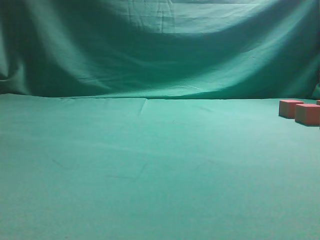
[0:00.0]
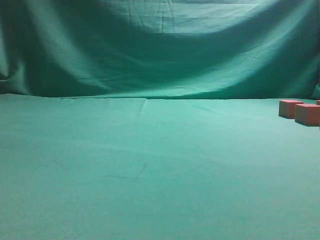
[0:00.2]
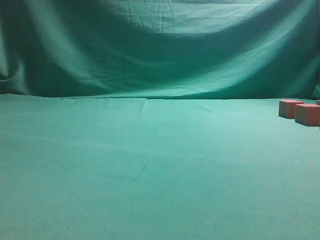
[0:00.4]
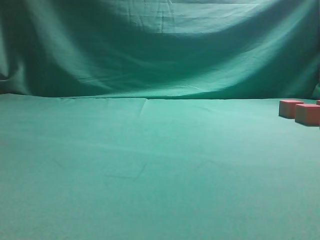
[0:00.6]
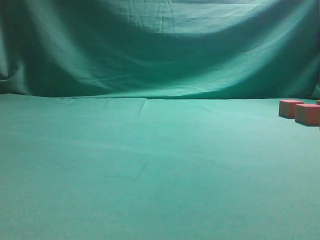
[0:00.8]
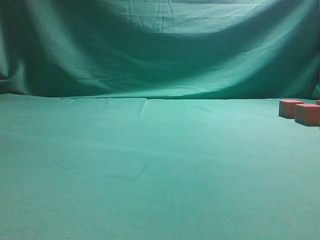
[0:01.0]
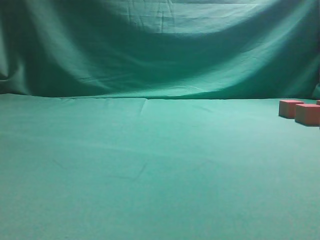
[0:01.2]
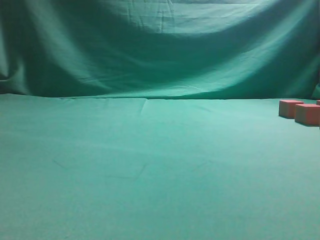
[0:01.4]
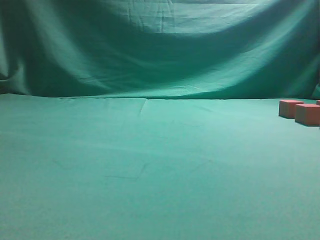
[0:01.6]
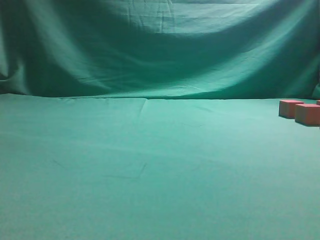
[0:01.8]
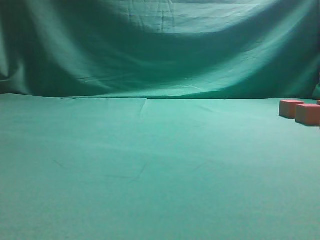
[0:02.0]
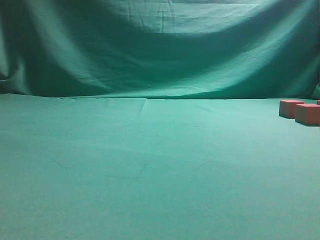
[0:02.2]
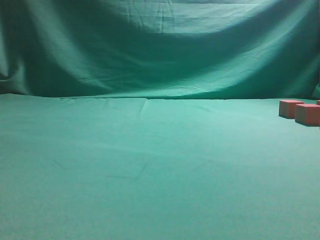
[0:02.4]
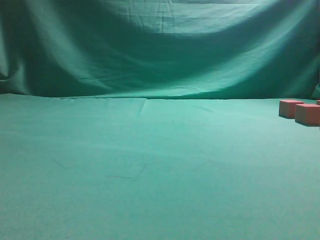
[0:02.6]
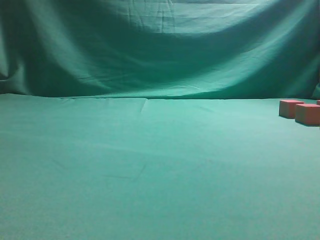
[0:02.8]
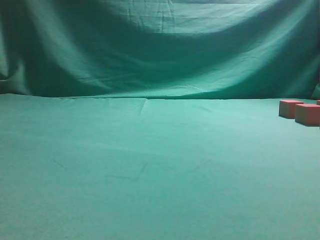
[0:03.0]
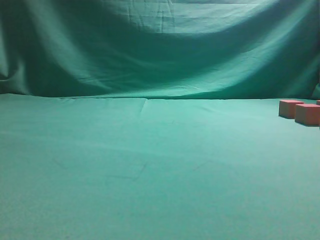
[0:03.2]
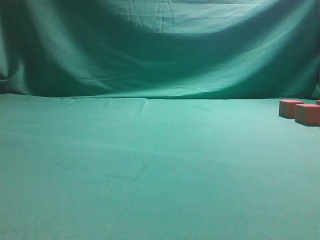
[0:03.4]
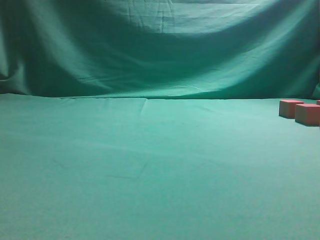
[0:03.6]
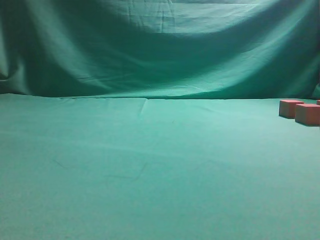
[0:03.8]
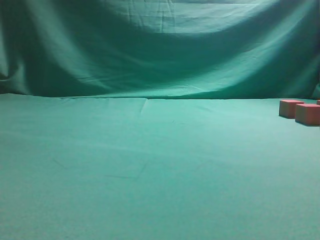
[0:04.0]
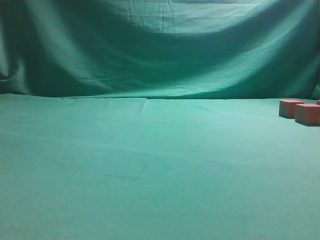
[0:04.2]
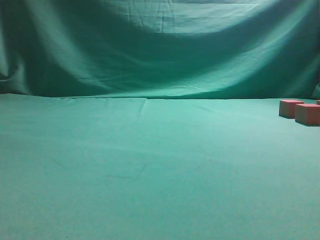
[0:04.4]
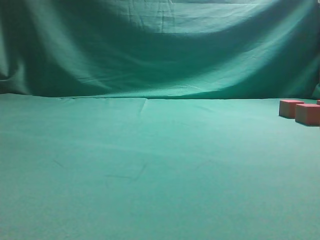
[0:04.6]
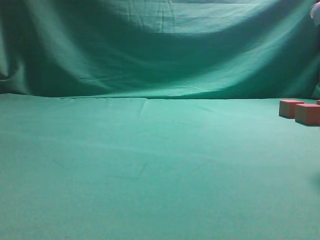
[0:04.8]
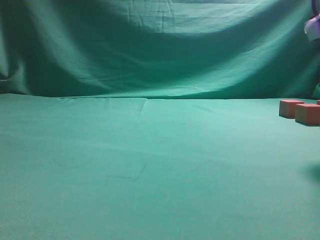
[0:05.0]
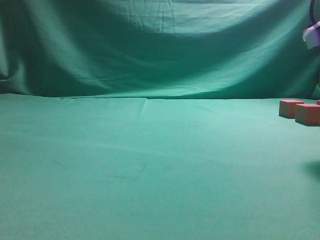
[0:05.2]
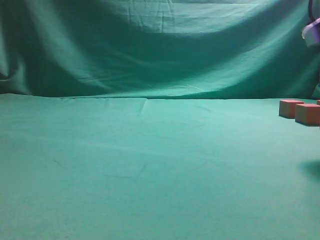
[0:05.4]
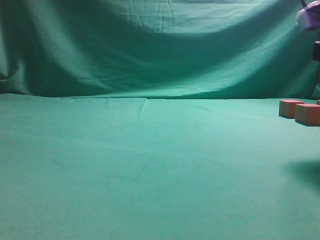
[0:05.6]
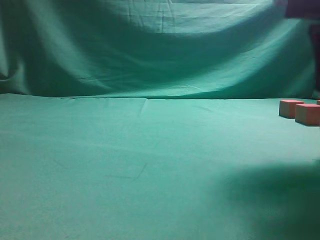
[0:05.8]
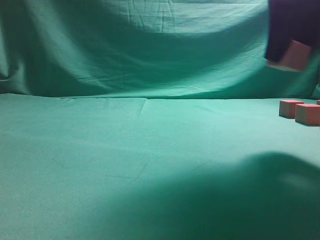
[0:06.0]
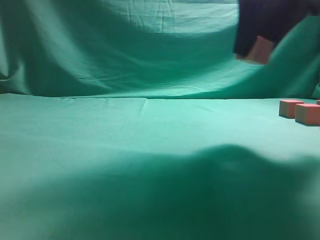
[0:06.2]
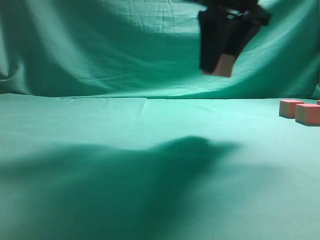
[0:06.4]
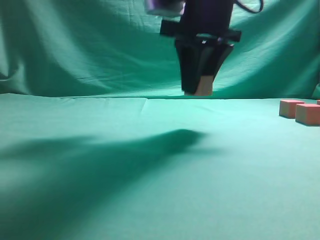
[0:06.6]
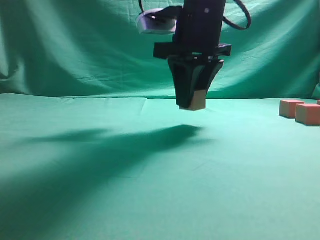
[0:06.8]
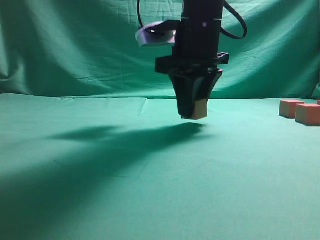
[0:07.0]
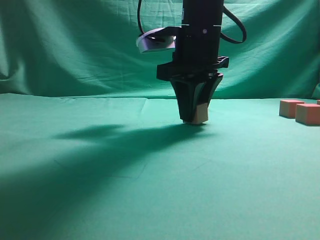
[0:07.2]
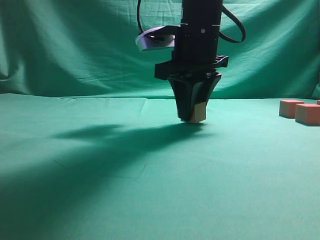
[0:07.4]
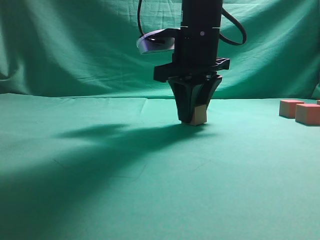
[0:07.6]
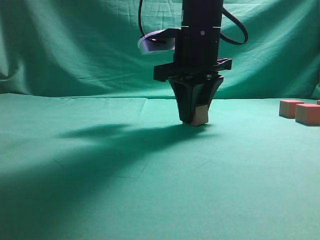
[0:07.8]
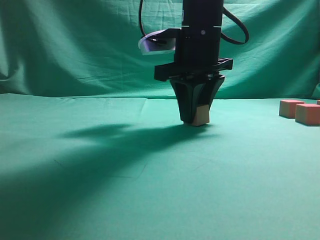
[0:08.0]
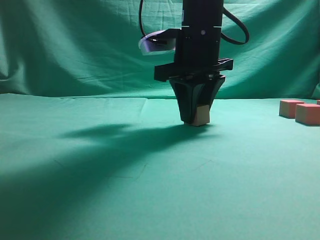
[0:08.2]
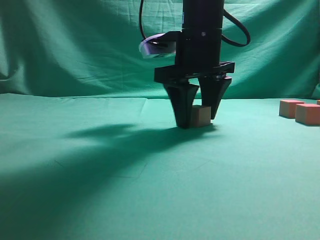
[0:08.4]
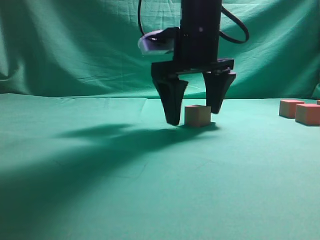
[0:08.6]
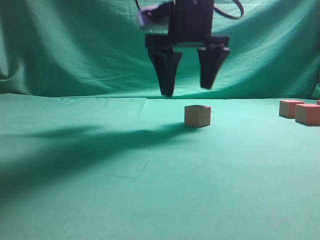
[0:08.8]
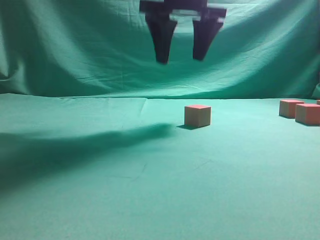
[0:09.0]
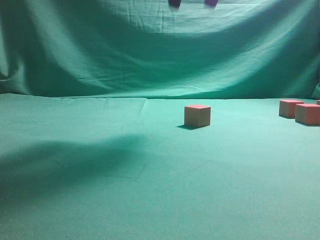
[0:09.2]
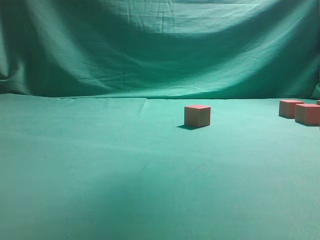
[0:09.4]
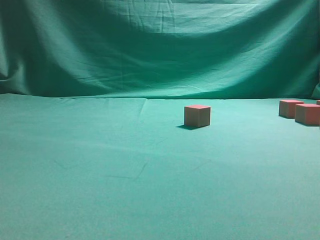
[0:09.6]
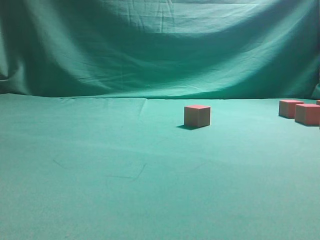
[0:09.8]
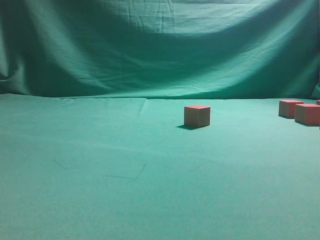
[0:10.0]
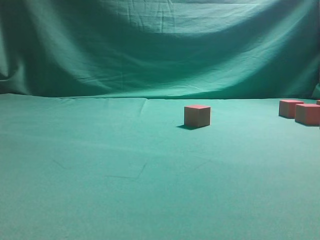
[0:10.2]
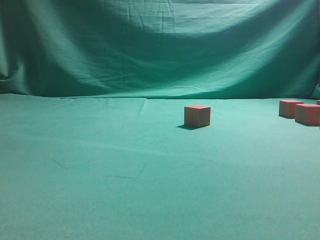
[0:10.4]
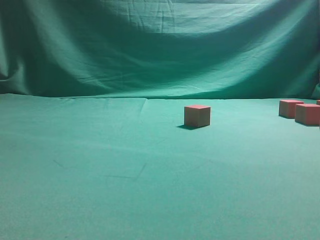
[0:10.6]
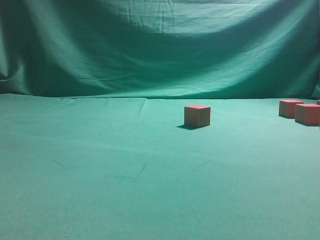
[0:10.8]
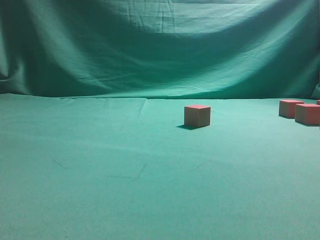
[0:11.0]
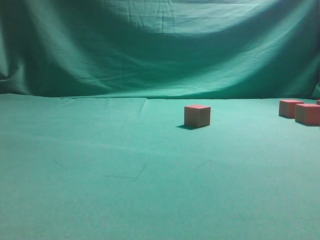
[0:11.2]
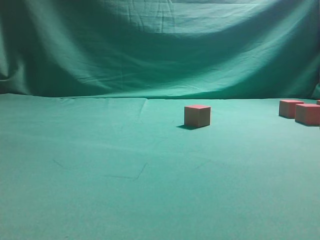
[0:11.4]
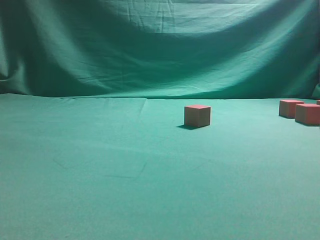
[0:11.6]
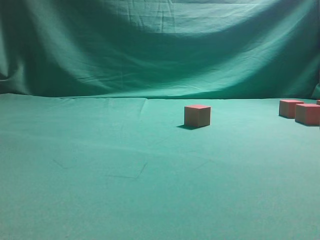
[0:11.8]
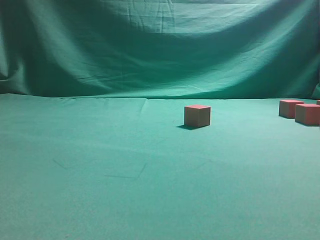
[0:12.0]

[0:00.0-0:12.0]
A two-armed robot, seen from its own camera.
Task of the whole recording: pick up the multiple cubes in two columns one by one and place them in another position on the table.
Step, 0:05.8 to 0:08.8: Place the block at the correct position to assemble the letter S.
Step, 0:09.0 to 0:11.4: Pick up the block on the table.
0:04.4 to 0:06.0: The right gripper shifts roughly 10 cm forward and to the left.
0:06.0 to 0:07.6: The right gripper travels to the left, forward and downward by approximately 20 cm.
0:07.6 to 0:09.0: The right gripper is displaced upward by about 10 cm, and opens.
0:09.0 to 0:10.4: The right gripper travels to the right and backward by roughly 30 cm.

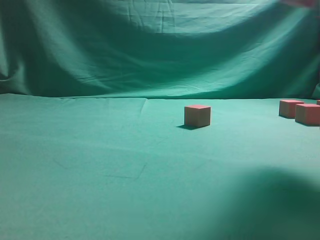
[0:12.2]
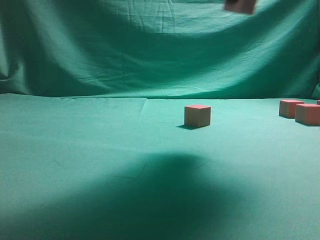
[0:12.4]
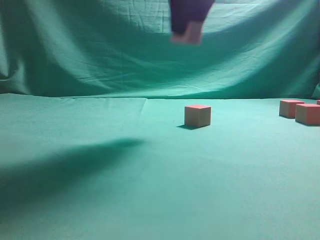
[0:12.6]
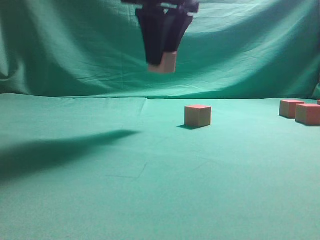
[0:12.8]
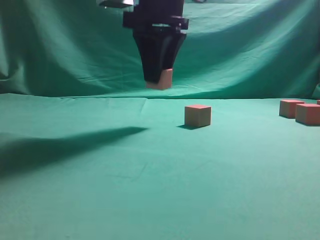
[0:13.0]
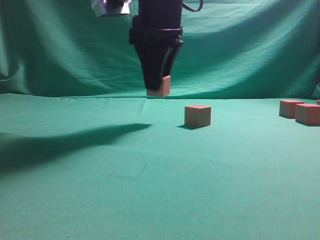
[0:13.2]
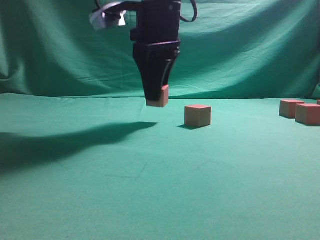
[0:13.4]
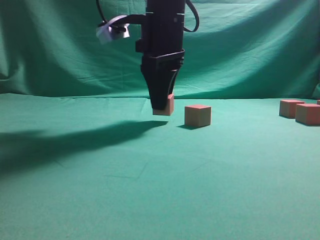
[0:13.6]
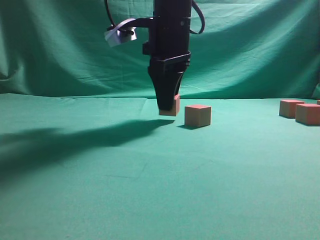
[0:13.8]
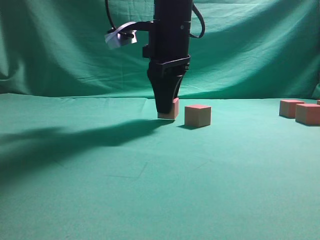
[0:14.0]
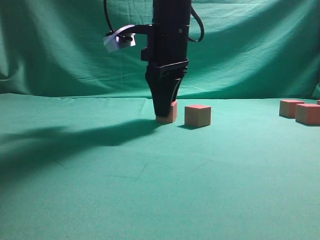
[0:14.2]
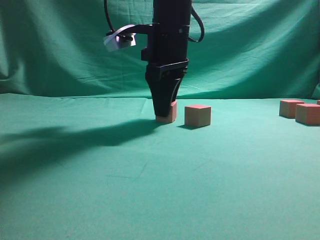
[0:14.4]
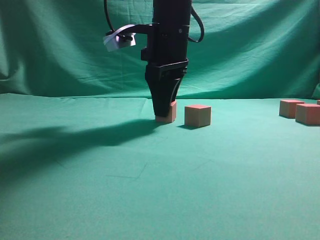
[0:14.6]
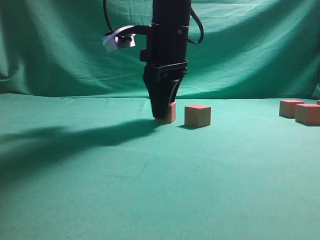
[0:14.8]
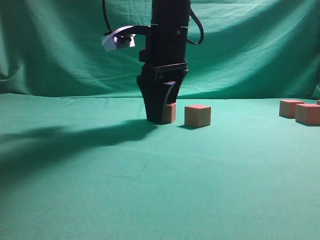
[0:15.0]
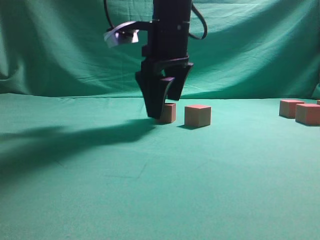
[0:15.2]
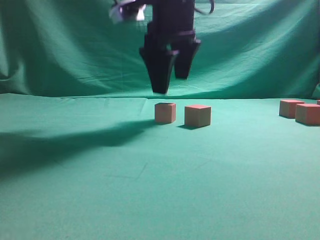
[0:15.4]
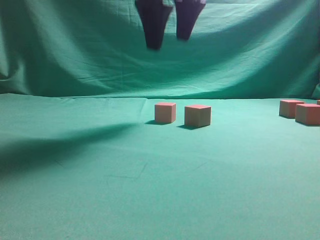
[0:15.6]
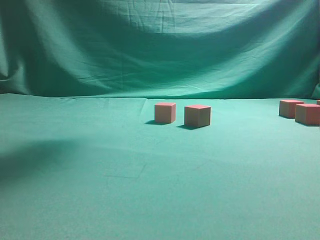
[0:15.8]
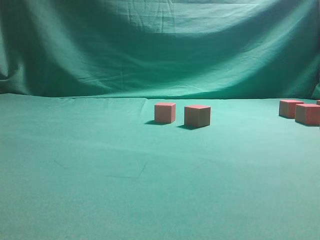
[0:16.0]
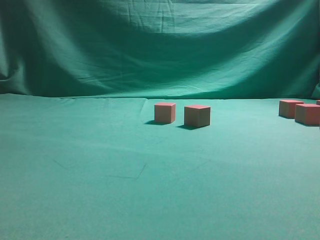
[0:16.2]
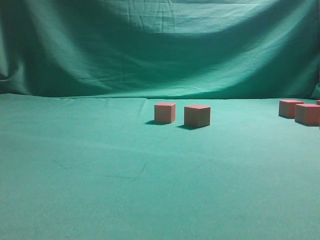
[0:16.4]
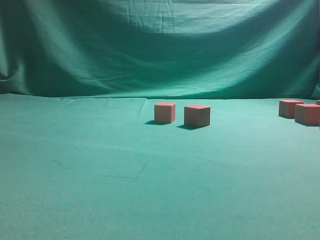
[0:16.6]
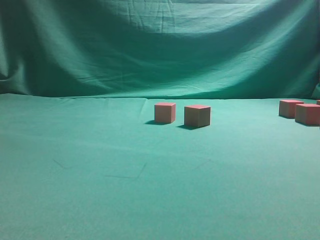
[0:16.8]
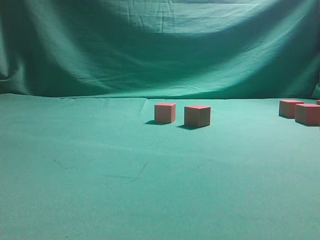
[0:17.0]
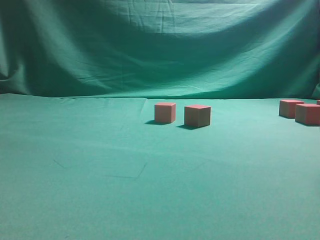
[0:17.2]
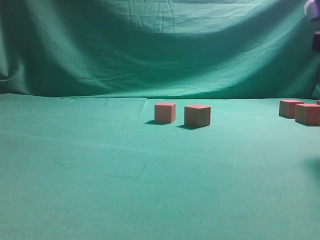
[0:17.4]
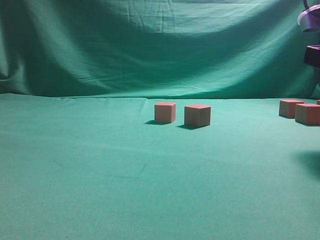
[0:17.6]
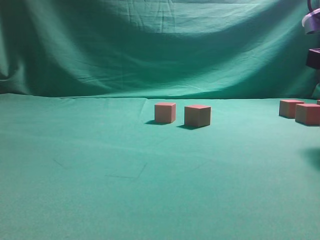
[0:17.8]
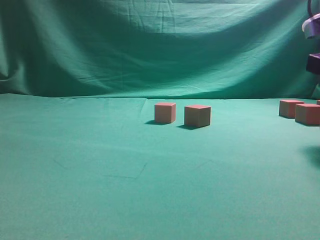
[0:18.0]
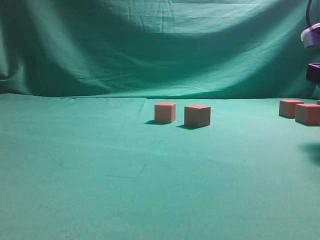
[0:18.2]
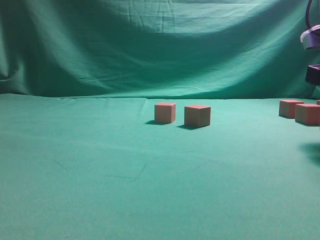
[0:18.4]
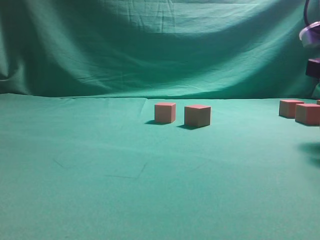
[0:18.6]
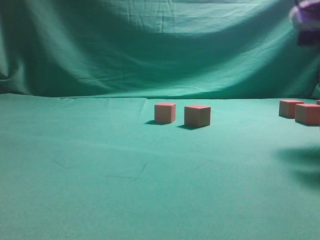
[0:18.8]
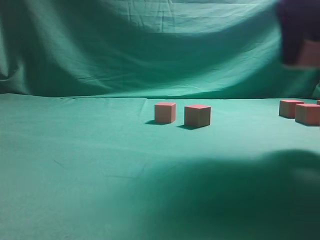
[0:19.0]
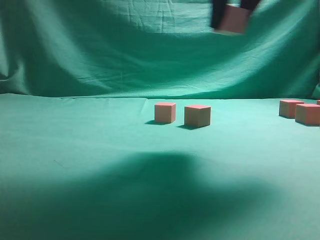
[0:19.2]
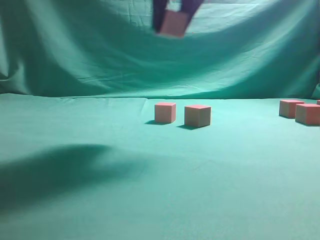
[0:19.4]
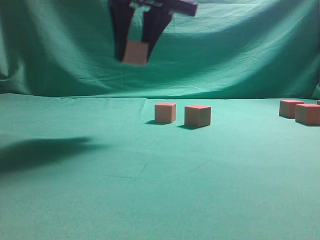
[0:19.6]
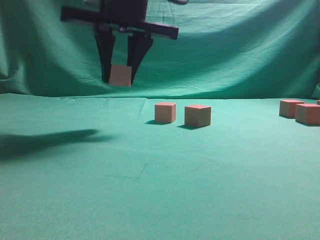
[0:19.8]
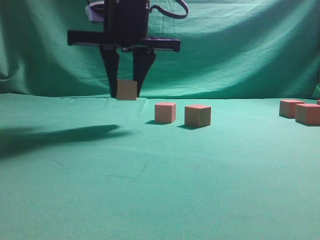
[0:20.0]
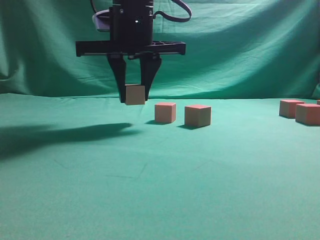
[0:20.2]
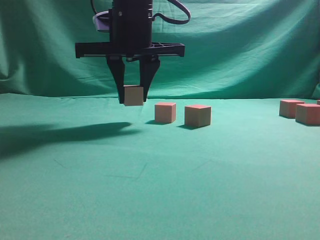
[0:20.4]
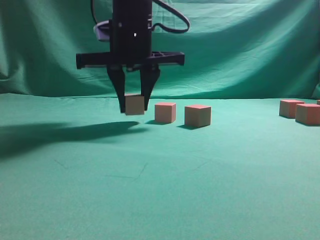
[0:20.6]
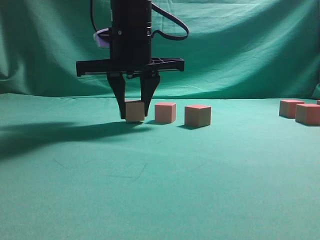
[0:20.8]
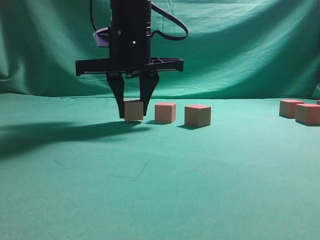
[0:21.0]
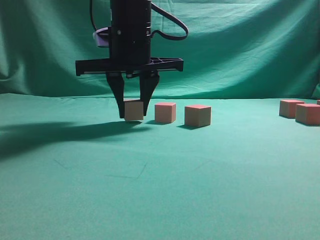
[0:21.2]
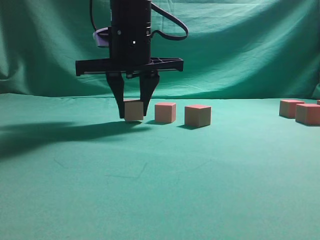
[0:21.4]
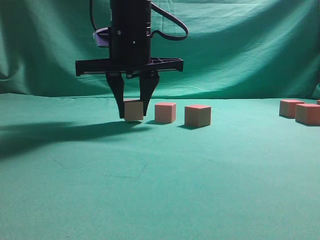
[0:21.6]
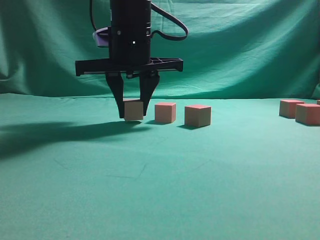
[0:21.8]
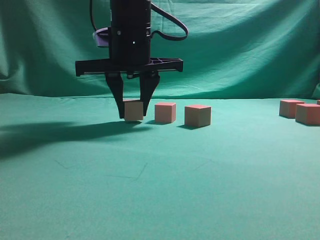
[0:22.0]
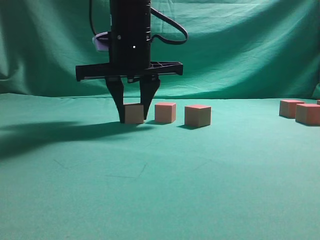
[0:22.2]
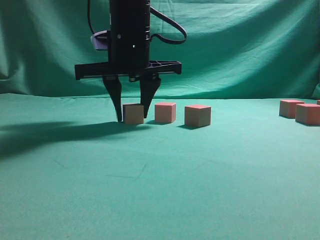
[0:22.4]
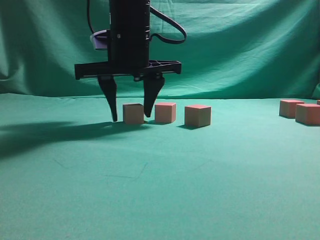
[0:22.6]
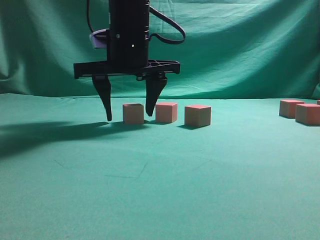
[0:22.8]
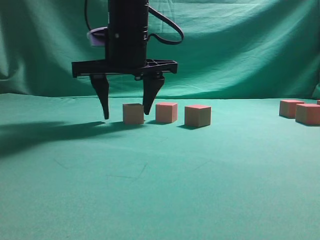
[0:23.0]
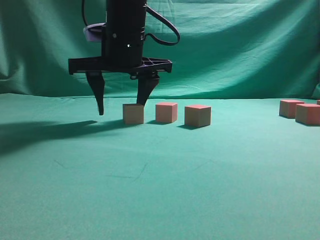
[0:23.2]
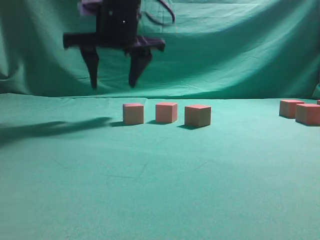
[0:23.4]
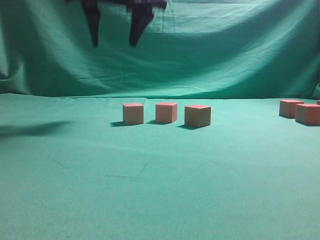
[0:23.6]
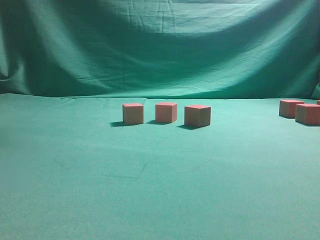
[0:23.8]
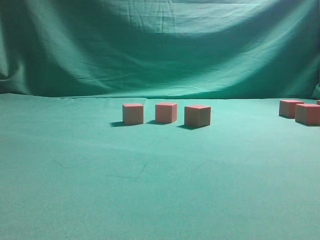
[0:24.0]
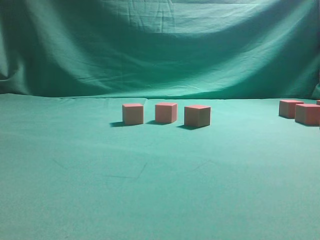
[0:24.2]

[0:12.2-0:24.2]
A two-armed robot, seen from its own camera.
Task of the whole recording: pick up the multiple cubes in two columns one by one and place them in another position on the table.
Step, 0:12.2 to 0:15.4: Place the block at the correct position to assemble the letter S.
Step, 0:15.6 to 0:18.6: Pick up the block on the table.
Step, 0:18.8 to 0:23.4: Place the block at the correct position to assemble the letter S.
0:12.2 to 0:13.8: The right gripper shifts approximately 25 cm to the left, downward and forward.
0:13.8 to 0:15.2: The right gripper opens up.
0:15.2 to 0:16.6: The right gripper goes about 35 cm to the right, backward and upward.
0:16.6 to 0:18.2: The right gripper heads downward, covering about 20 cm.
0:18.2 to 0:19.8: The right gripper travels to the left by some 30 cm, and closes up.
0:19.8 to 0:21.2: The right gripper is displaced downward by roughly 5 cm.
0:21.2 to 0:22.6: Both grippers stay about where they are.
0:22.6 to 0:24.2: The right gripper moves upward and to the right, some 35 cm.
